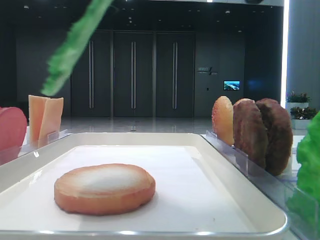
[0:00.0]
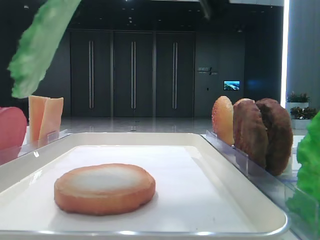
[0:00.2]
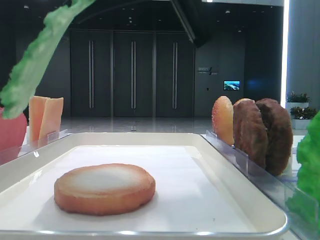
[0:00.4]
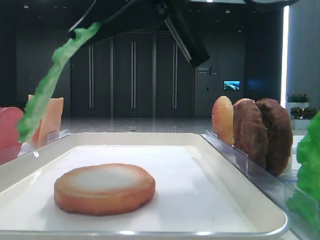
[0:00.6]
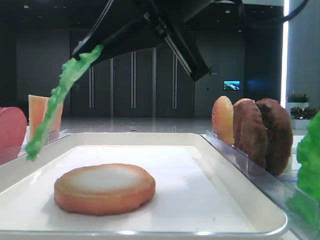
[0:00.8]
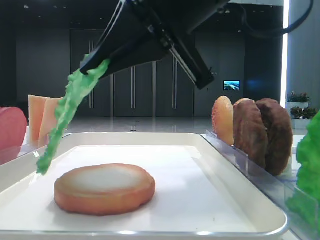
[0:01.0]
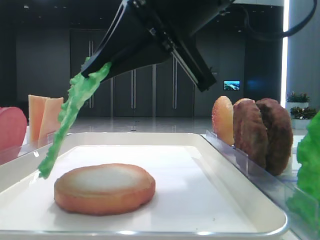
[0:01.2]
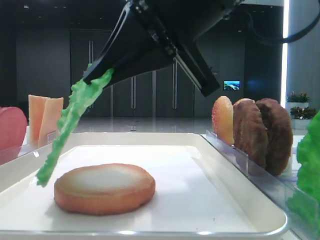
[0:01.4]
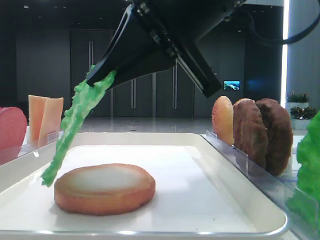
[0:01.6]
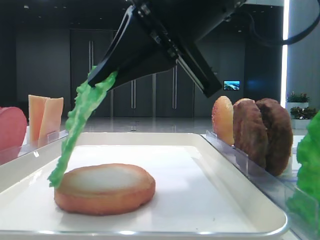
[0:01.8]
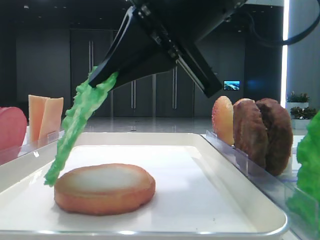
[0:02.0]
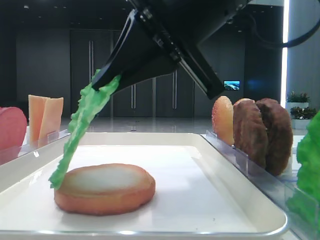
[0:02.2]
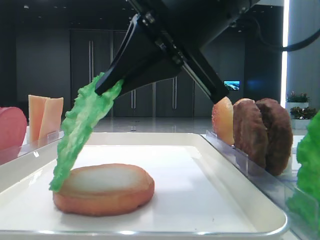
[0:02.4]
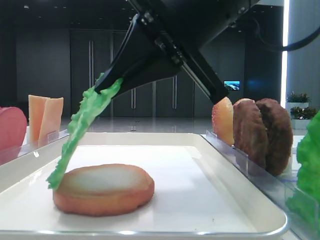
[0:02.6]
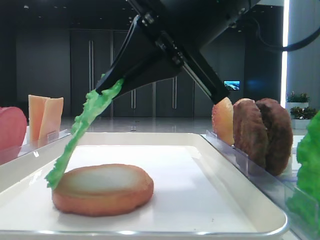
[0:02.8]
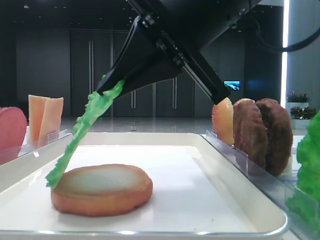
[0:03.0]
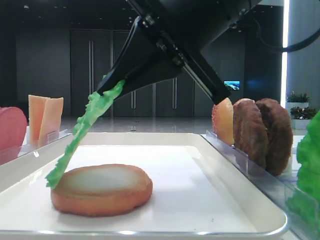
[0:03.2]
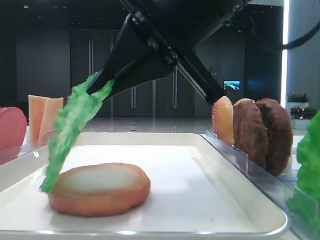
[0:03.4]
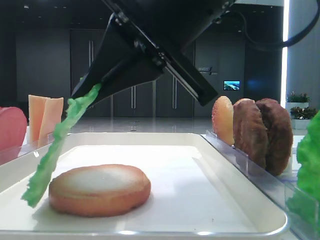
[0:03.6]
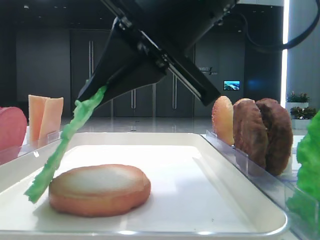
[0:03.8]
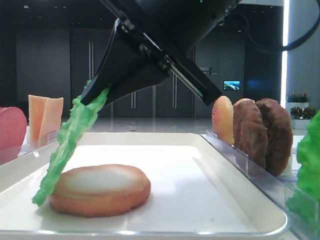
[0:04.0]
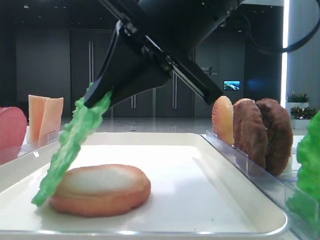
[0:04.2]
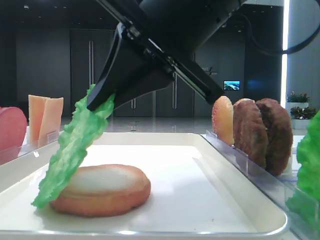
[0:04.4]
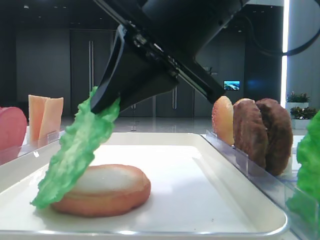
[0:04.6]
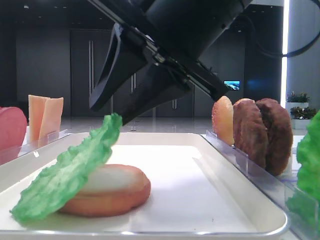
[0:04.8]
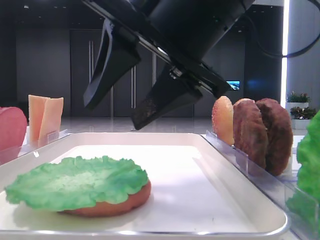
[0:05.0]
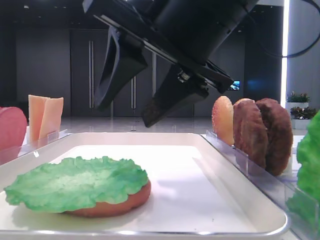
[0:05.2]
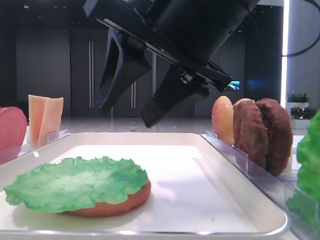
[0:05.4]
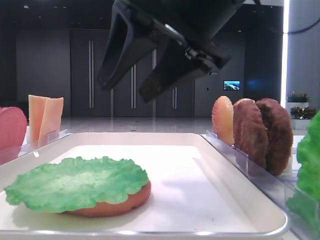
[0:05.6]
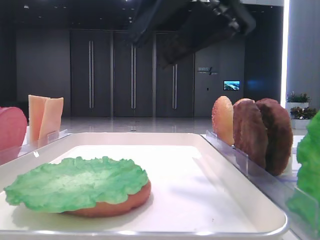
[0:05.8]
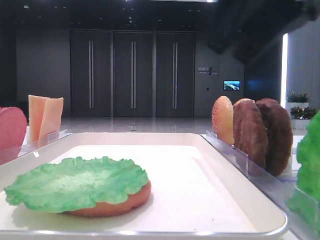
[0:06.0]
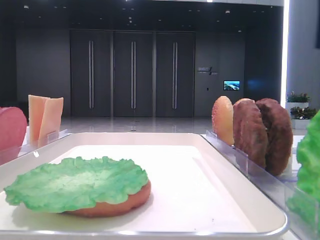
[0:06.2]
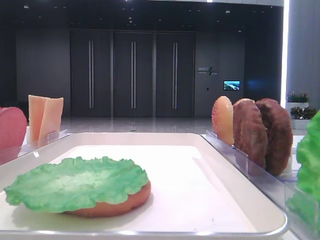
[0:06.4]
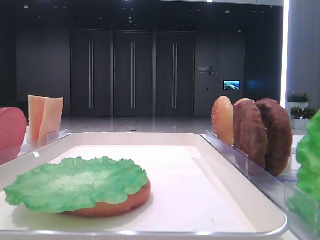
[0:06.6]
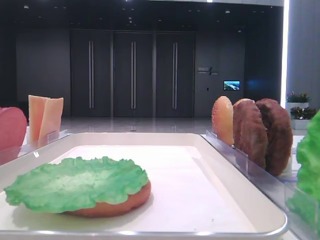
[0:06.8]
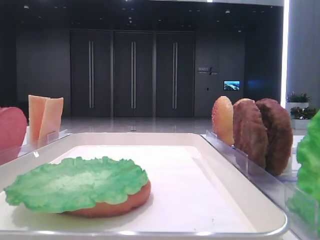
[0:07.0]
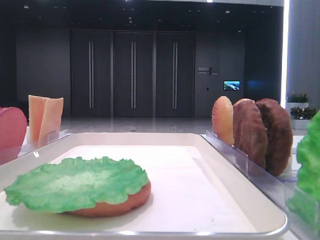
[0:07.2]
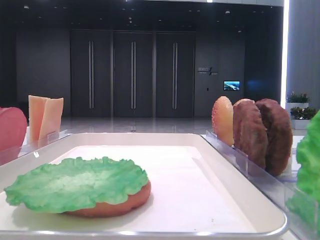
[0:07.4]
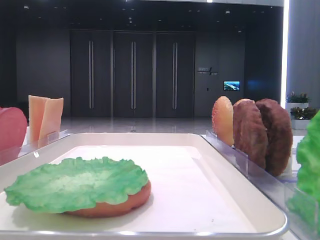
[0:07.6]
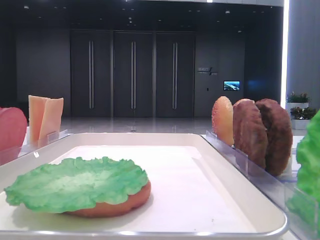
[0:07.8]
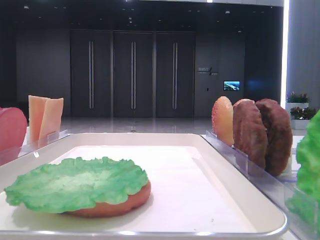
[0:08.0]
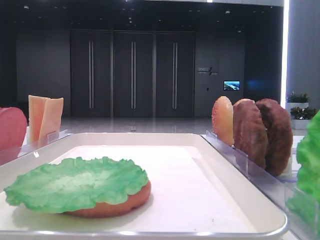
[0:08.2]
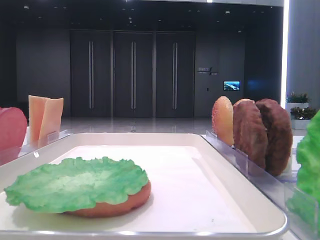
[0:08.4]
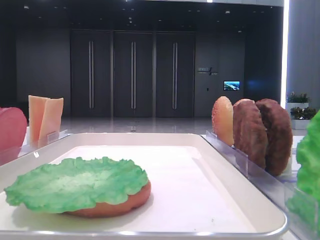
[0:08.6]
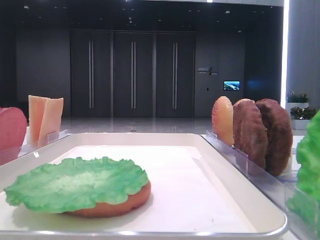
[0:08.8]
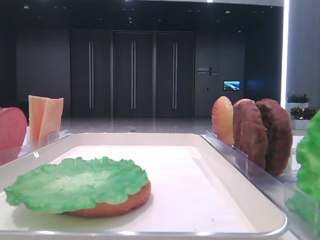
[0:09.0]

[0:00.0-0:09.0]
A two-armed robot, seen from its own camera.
Step, 0:00.0 to 0:04.8: Place the lettuce leaf on the bottom bread with the right hand.
0:00.0 to 0:01.6: The right gripper is displaced downward by approximately 10 cm.
0:01.6 to 0:03.0: Neither gripper changes place.
0:03.0 to 0:04.4: The grippers move only a little.
0:04.4 to 0:06.0: The right gripper travels to the right and upward by some 10 cm, and opens.
0:06.0 to 0:07.6: The right gripper travels backward and to the right by some 25 cm.

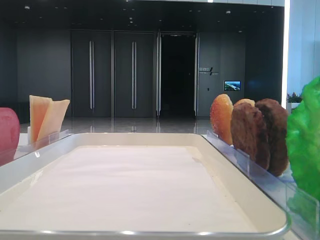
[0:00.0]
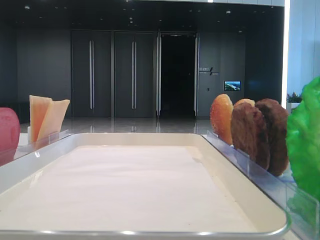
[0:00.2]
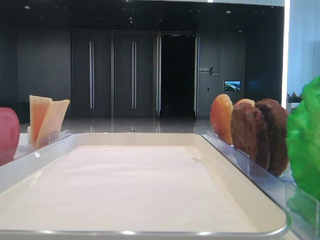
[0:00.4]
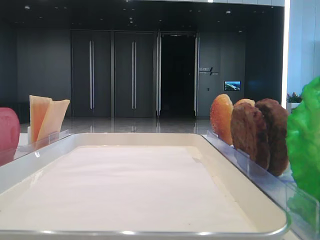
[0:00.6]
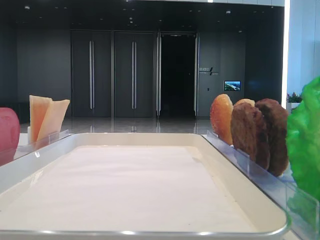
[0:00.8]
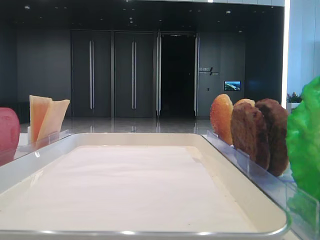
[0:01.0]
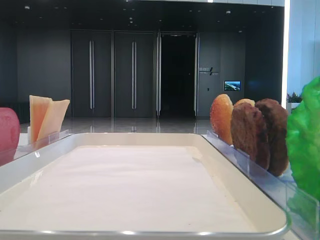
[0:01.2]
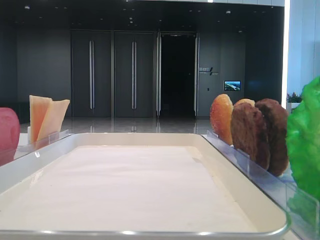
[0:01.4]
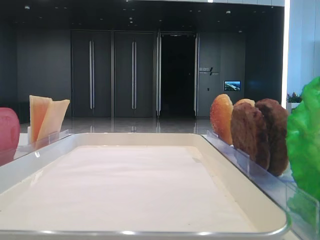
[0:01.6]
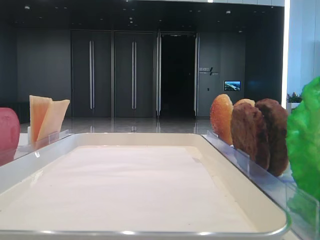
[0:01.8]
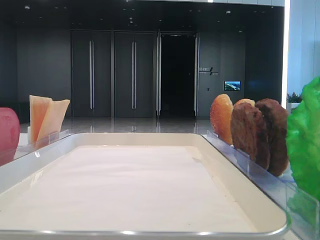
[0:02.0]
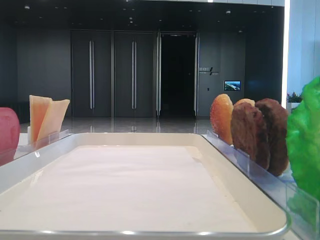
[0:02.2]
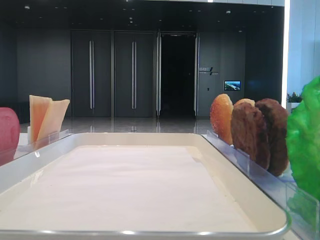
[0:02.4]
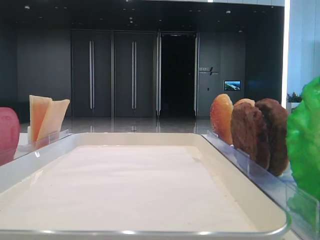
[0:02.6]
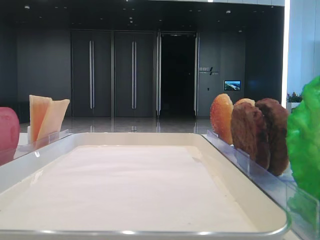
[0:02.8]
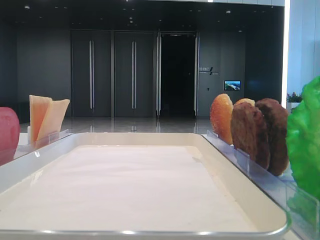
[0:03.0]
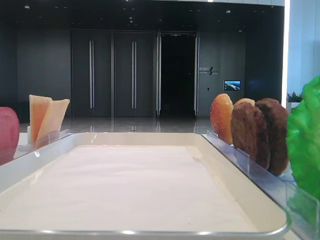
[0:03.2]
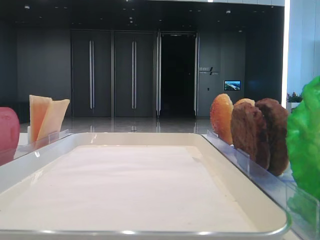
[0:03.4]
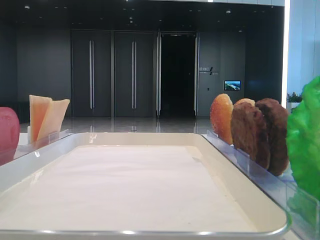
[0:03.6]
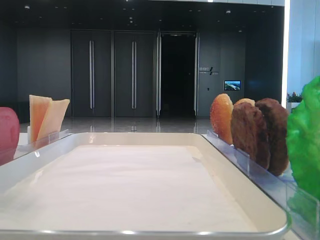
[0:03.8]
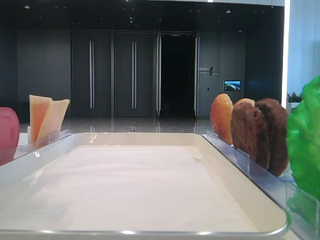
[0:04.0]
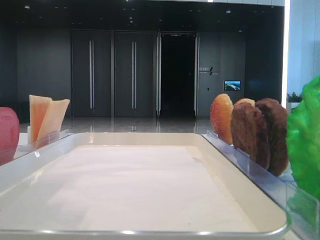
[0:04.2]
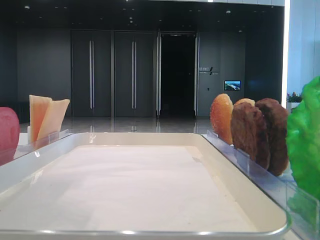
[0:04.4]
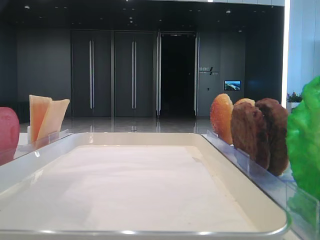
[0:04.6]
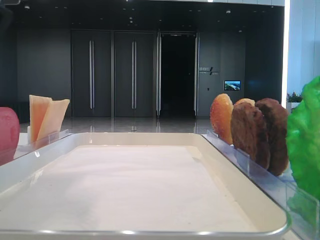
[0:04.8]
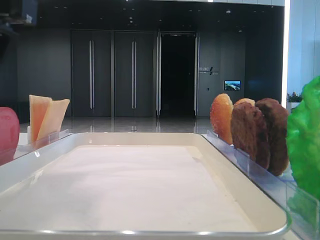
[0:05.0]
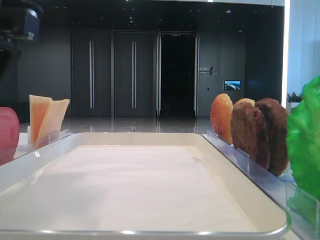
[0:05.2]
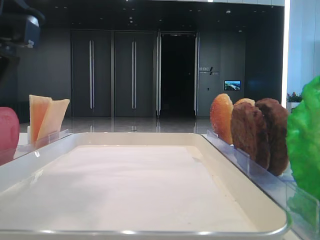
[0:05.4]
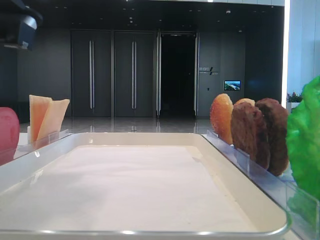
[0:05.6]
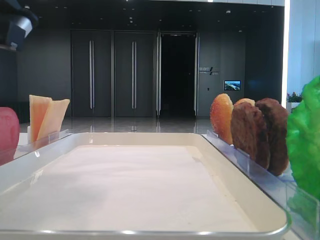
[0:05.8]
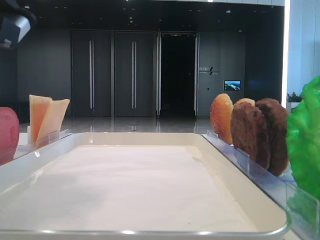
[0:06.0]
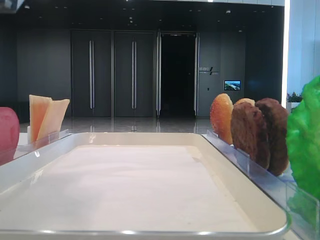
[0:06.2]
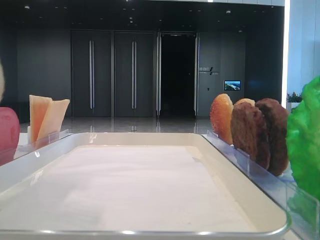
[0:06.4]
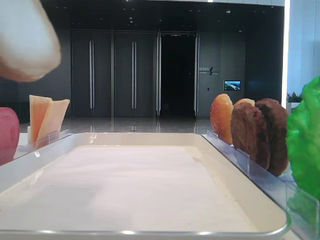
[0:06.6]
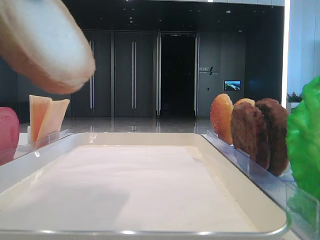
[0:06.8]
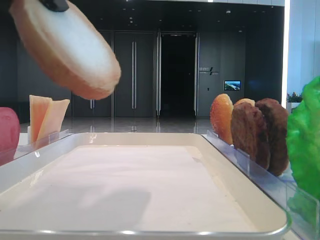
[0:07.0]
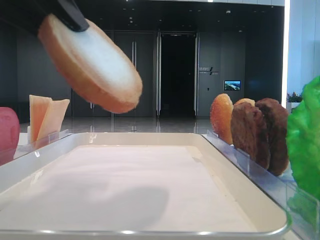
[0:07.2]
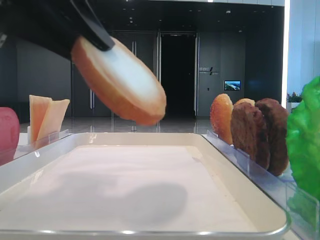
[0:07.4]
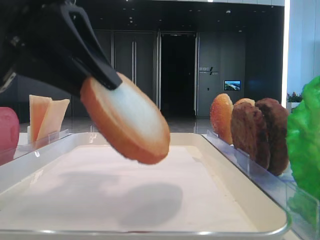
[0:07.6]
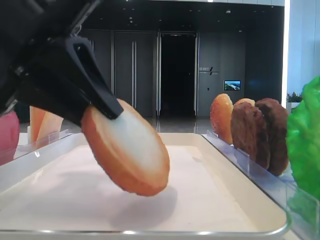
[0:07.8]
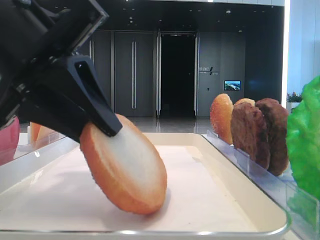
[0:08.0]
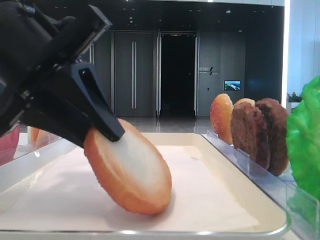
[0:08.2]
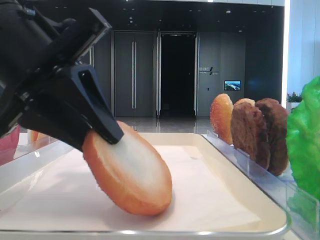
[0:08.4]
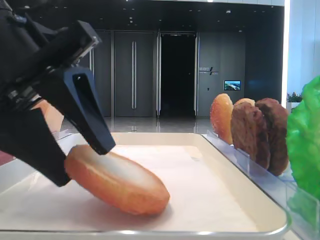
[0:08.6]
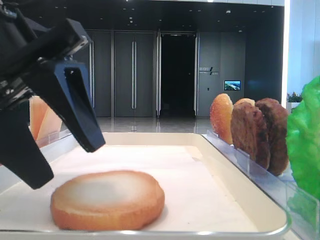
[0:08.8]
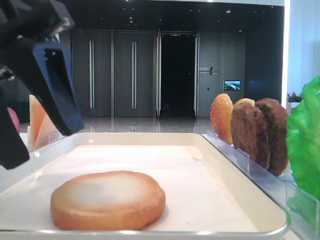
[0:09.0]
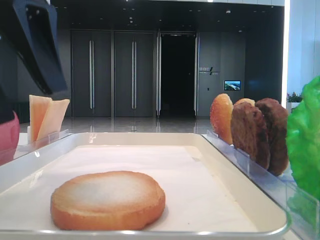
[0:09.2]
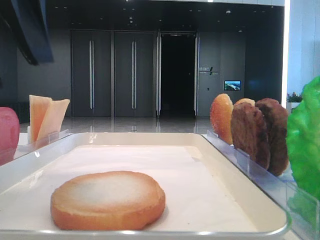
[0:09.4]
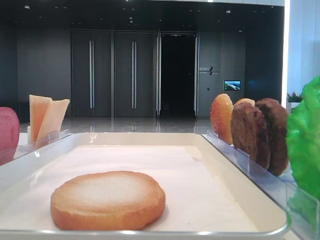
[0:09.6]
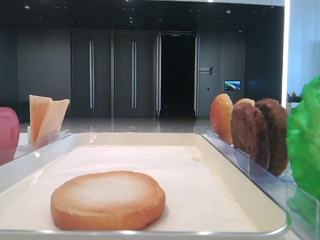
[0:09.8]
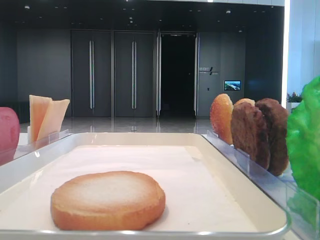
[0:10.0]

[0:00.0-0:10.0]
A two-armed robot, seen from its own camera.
Step, 0:05.6 to 0:08.8: Place the bread on the tray with the left hand.
0:02.8 to 0:04.2: The left gripper goes approximately 15 cm to the right.
0:04.2 to 0:05.8: The left gripper moves downward, roughly 5 cm, and closes its fingers.
0:07.2 to 0:08.6: The left gripper travels downward by approximately 10 cm, and opens.
0:08.6 to 0:10.0: The left gripper travels to the left and upward by about 20 cm, and opens.

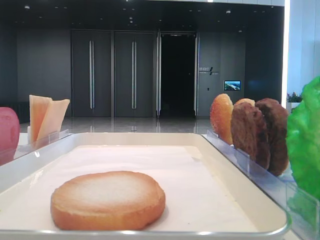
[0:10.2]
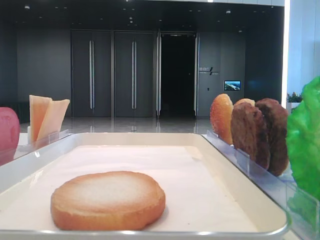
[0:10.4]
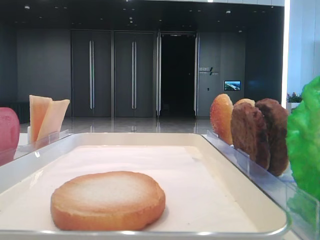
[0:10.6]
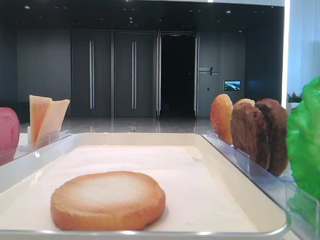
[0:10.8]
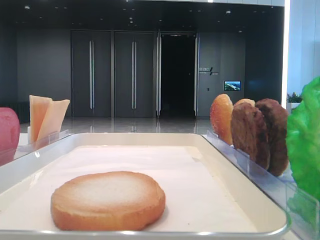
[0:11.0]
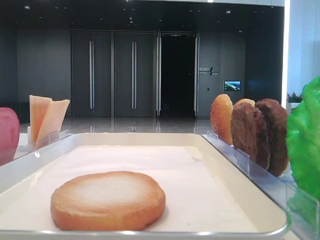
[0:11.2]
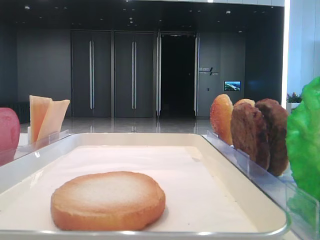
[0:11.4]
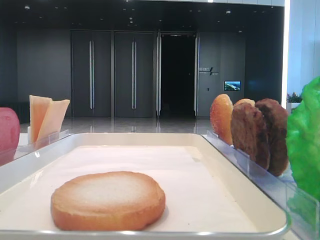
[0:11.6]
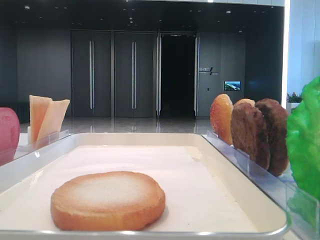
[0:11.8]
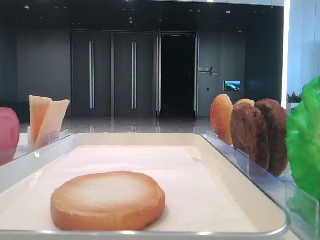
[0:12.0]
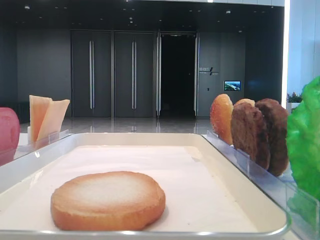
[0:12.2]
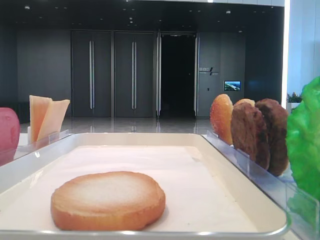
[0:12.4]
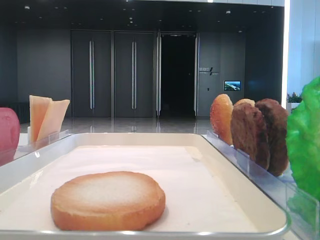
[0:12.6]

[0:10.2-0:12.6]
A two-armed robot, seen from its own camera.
0:11.4 to 0:12.6: The two grippers keep their place.

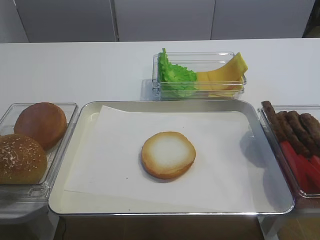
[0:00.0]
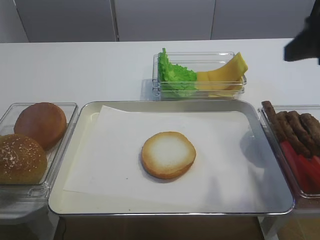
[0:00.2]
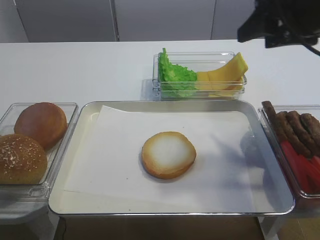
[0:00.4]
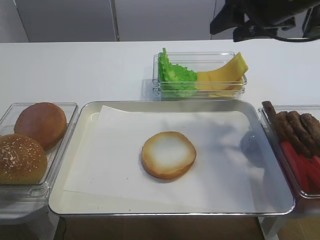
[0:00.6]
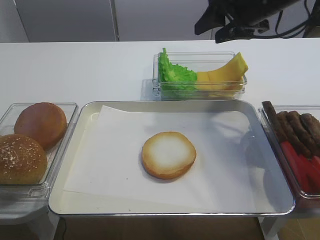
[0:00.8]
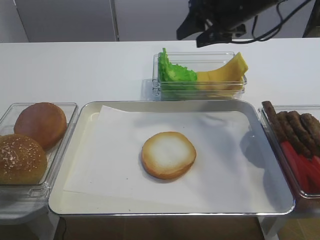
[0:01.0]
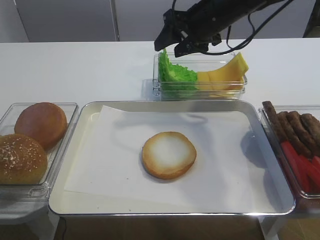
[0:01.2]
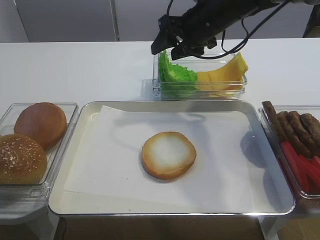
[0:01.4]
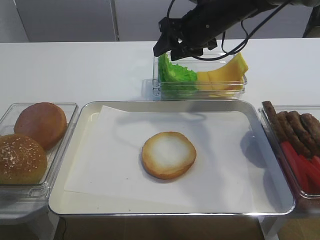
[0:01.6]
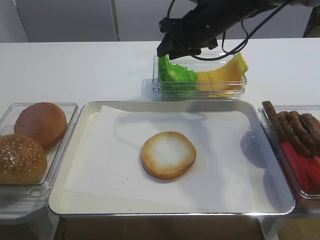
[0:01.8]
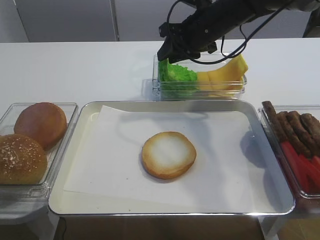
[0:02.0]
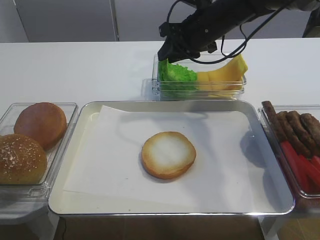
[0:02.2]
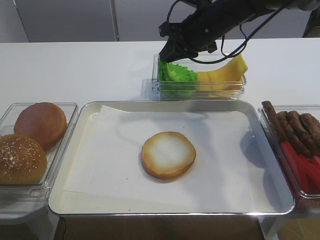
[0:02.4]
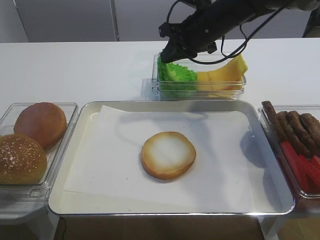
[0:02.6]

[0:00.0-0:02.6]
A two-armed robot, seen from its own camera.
0:00.0 to 0:01.2: The right gripper shifts some 35 cm forward and to the left.
0:01.2 to 0:02.6: The right gripper closes up.
